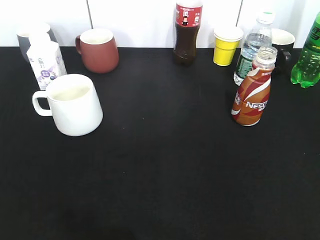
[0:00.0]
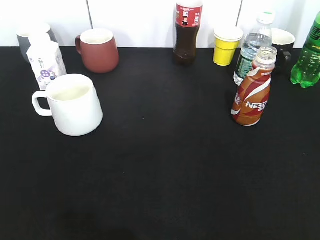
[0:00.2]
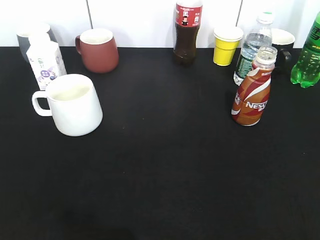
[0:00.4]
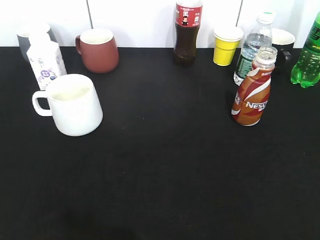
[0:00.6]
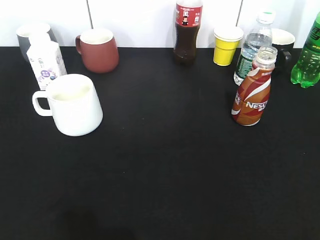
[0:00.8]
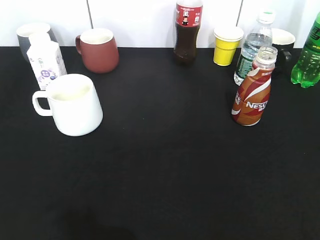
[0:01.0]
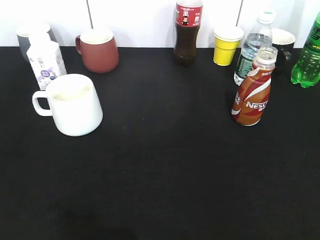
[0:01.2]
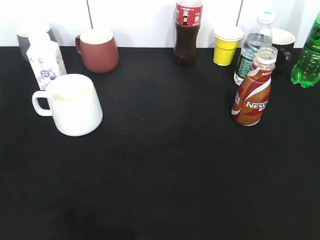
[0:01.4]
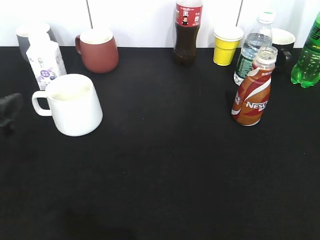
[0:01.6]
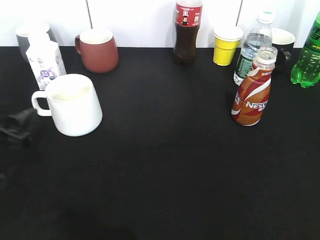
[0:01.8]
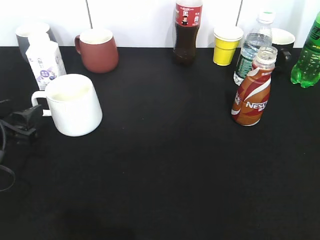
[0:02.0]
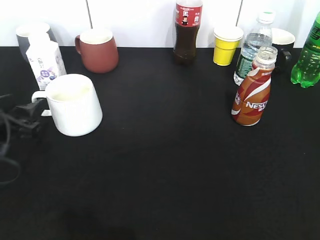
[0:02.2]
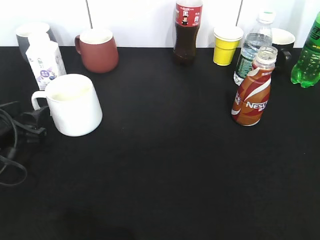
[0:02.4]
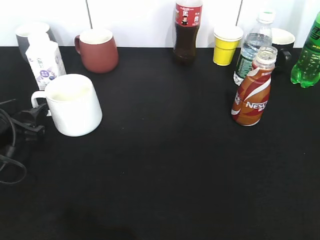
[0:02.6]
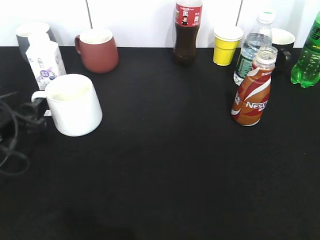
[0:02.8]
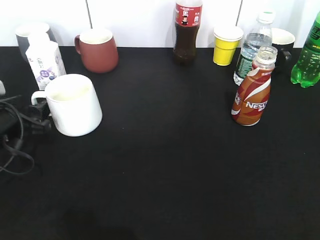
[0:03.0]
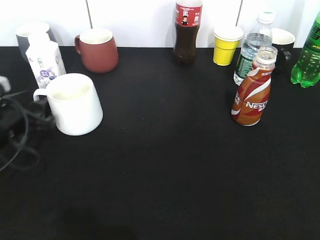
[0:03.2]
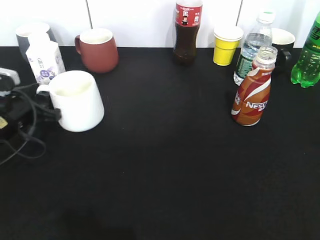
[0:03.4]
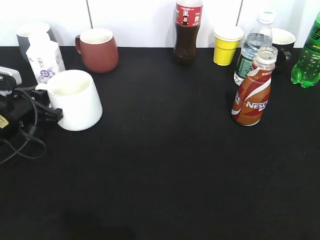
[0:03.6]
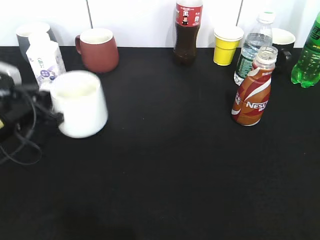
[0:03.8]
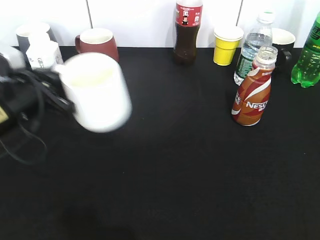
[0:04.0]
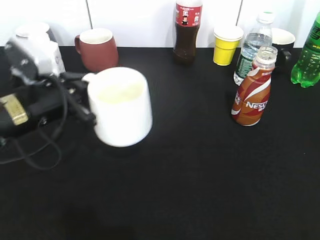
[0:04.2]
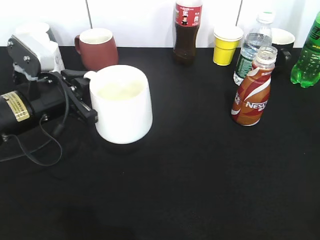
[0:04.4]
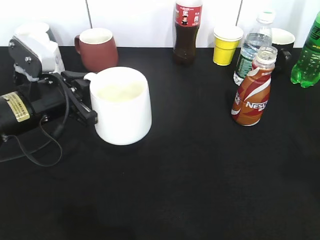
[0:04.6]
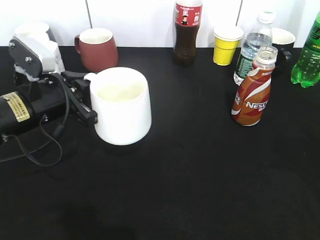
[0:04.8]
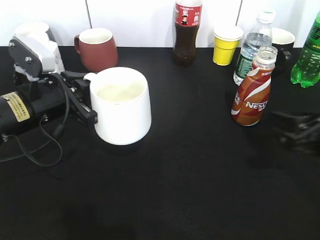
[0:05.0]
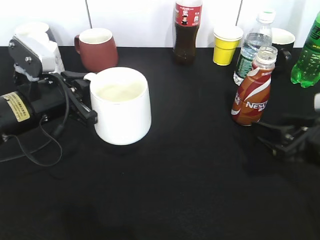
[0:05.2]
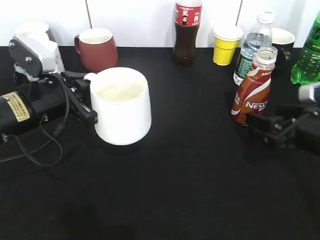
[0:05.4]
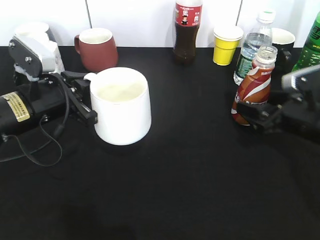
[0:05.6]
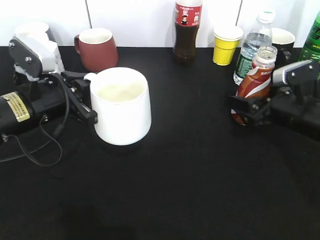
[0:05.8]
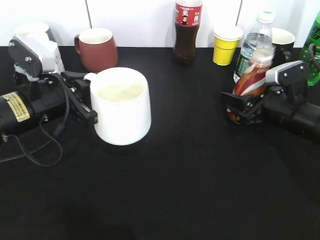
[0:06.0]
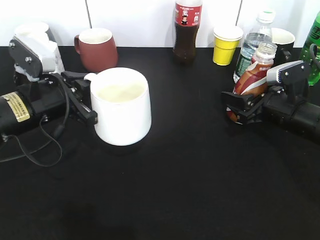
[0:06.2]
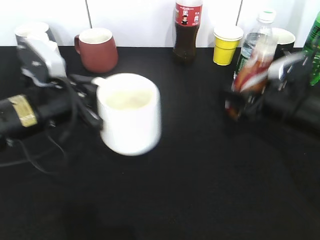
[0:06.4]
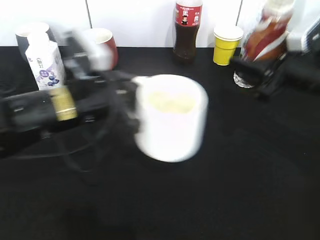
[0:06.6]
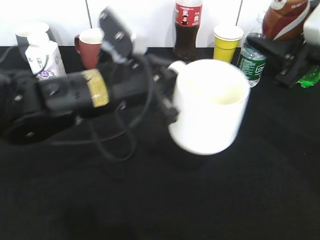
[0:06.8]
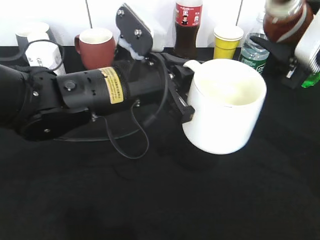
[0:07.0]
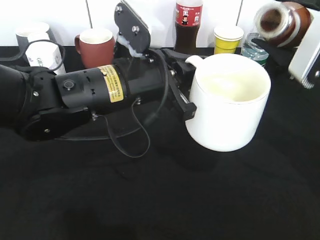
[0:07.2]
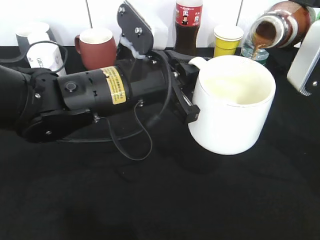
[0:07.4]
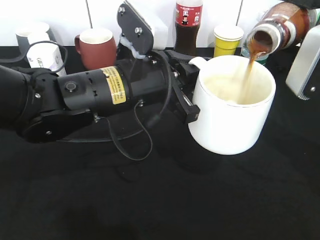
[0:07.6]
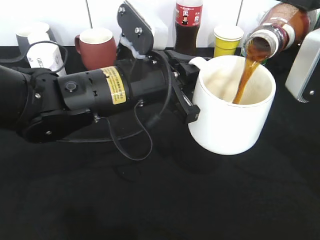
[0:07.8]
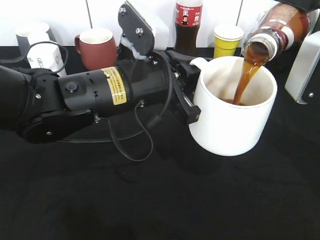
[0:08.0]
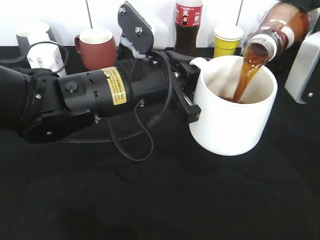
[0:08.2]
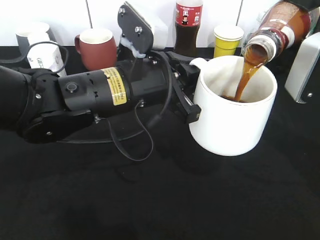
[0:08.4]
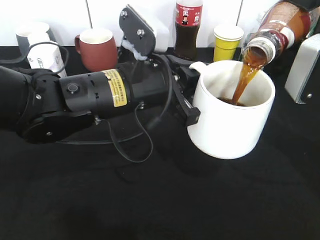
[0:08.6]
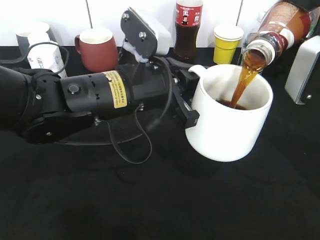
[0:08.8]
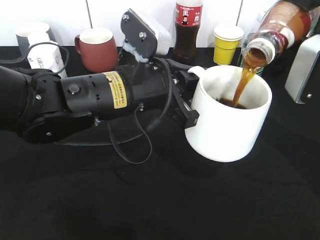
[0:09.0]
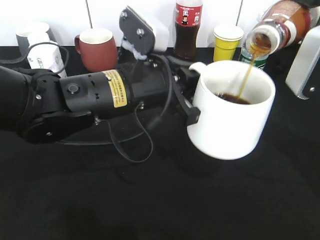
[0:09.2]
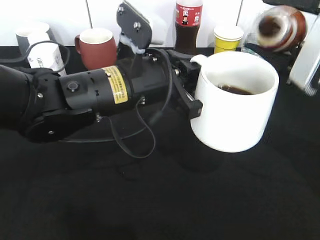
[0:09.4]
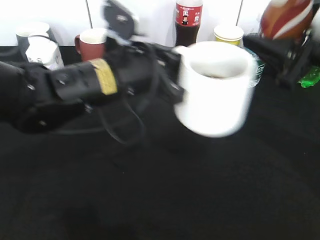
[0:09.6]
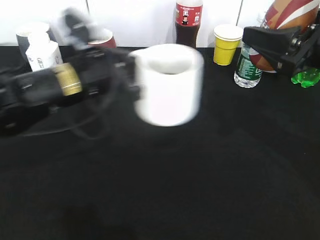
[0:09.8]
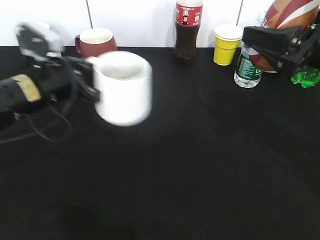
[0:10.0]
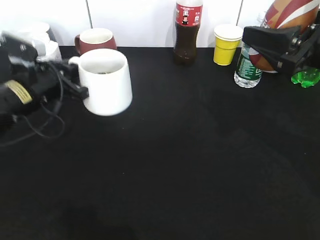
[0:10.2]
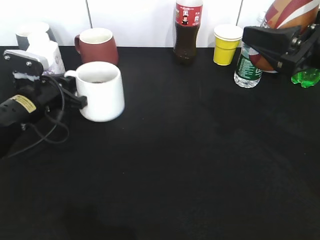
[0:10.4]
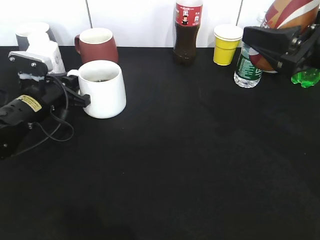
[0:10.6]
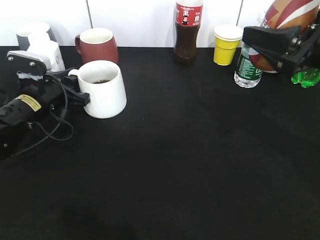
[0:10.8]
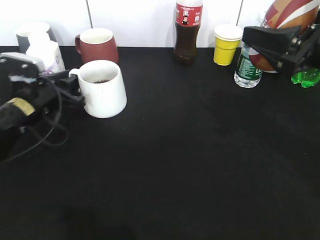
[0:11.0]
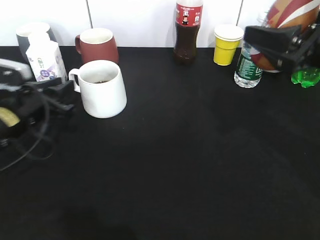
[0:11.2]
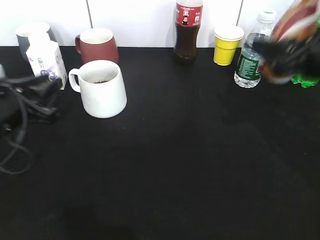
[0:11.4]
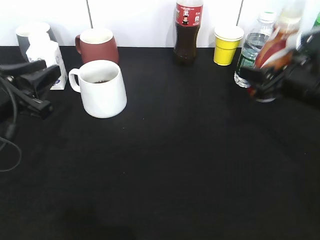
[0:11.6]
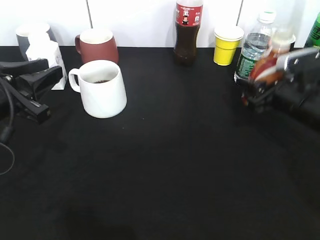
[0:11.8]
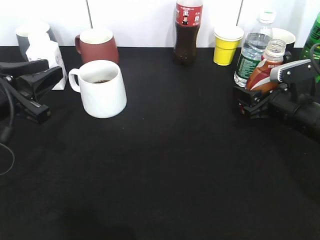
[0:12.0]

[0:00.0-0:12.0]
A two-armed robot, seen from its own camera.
Step, 0:00.6 to 0:03.4: Grasp the white cup with left gripper.
Step, 0:03.6 to 0:04.2: Lift the white cup with left gripper.
Step, 0:04.4 to 0:05.8: Grasp the bottle with coffee with right gripper.
Step, 0:06.0 to 0:09.6: Pour the coffee from bottle to cup with right gripper.
Step, 0:09.8 to 0:11.0: Place the white cup on the table with left gripper.
0:00.0 to 0:01.6: The left gripper moves forward and downward, roughly 25 cm, and opens up.
0:01.6 to 0:03.0: The left gripper moves forward and downward, some 10 cm.
0:03.0 to 0:04.4: The left gripper shifts approximately 10 cm to the right and upward, and closes up.
0:04.4 to 0:06.0: The right gripper is displaced forward and downward by about 35 cm, and opens and closes again.
0:06.0 to 0:07.6: The right gripper is displaced upward by about 15 cm. The left gripper heads to the right, covering some 15 cm.
0:07.6 to 0:09.0: There are only small adjustments of the grippers.
0:09.0 to 0:10.4: The left gripper heads to the left, downward and forward, covering about 20 cm.
0:10.4 to 0:12.0: The left gripper is displaced backward and upward by approximately 15 cm, and opens. The right gripper shifts about 15 cm downward and forward.

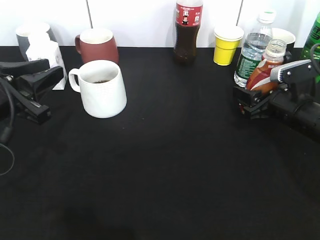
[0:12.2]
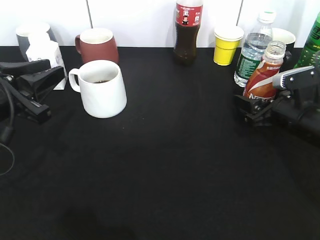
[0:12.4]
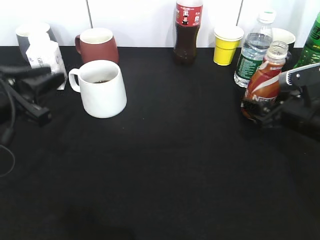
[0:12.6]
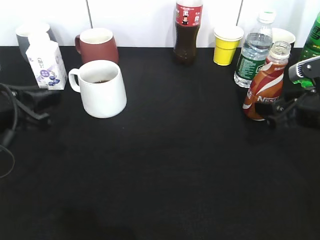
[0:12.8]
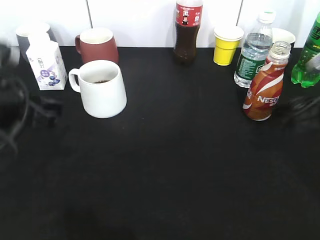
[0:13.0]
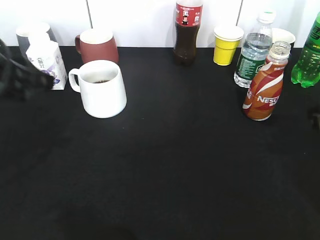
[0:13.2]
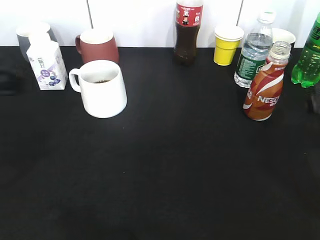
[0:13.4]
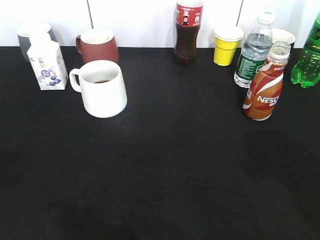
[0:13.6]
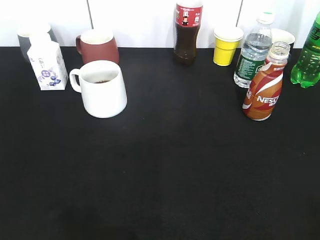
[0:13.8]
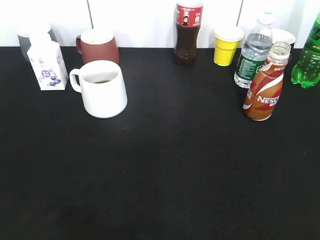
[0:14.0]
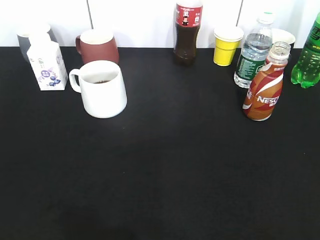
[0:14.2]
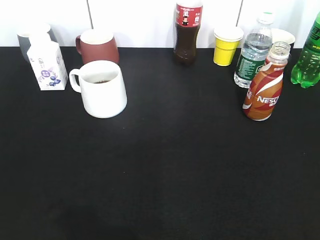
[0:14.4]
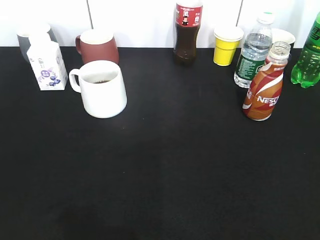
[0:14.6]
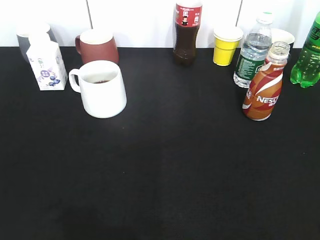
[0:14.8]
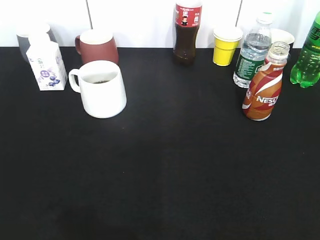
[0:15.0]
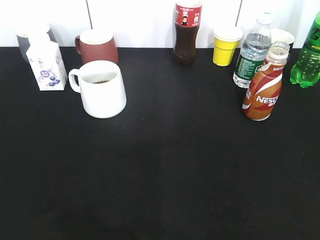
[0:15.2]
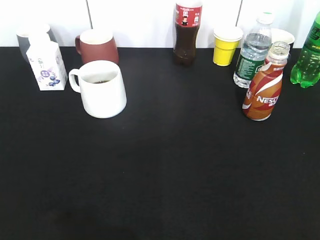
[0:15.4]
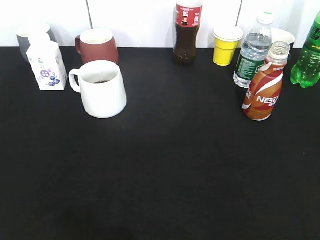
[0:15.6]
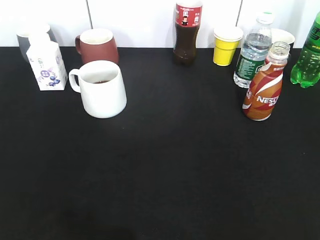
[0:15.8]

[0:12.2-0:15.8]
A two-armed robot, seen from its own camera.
0:12.2 to 0:14.0: The right gripper moves backward and upward, approximately 35 cm, while the left gripper heads backward and upward, covering approximately 25 cm.

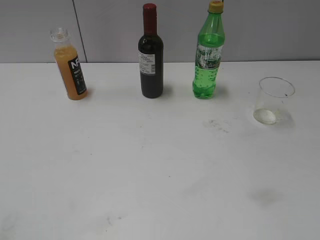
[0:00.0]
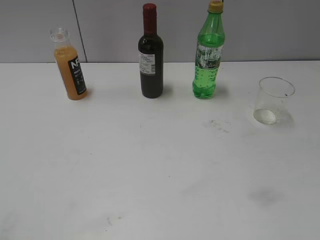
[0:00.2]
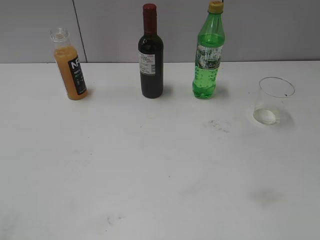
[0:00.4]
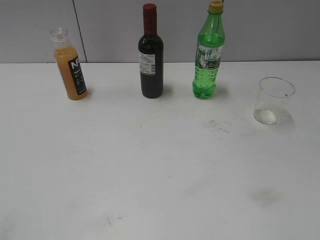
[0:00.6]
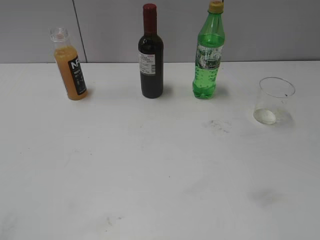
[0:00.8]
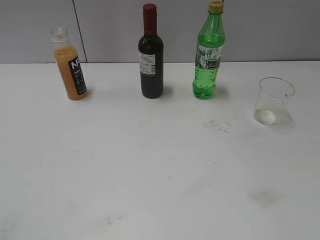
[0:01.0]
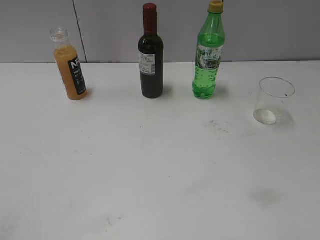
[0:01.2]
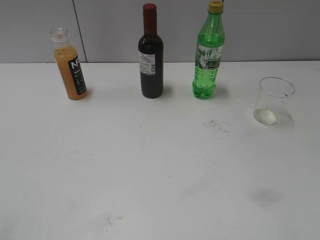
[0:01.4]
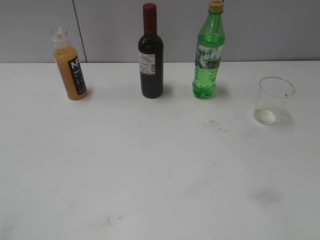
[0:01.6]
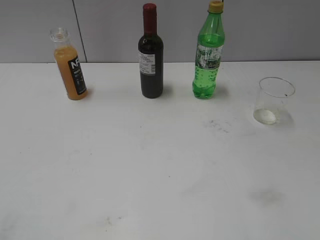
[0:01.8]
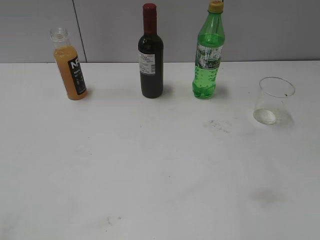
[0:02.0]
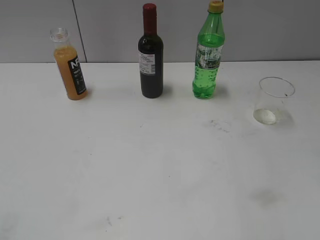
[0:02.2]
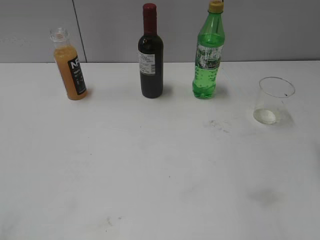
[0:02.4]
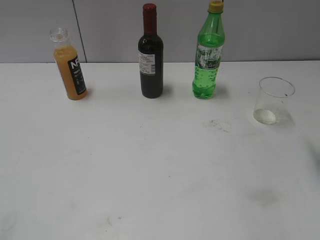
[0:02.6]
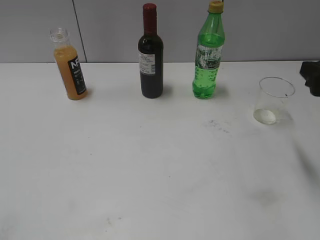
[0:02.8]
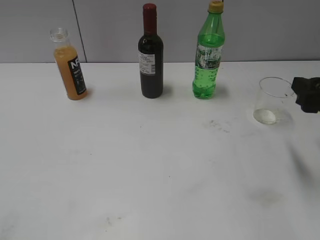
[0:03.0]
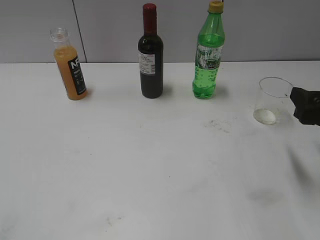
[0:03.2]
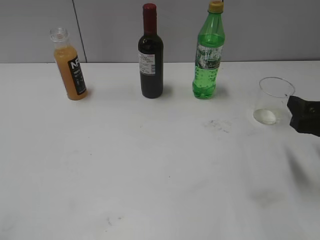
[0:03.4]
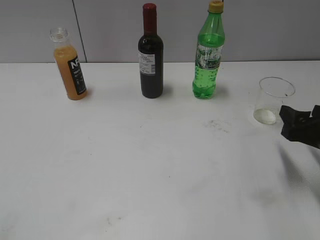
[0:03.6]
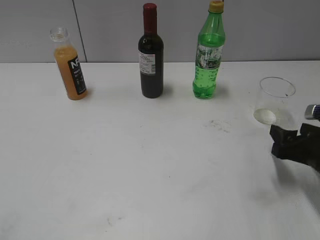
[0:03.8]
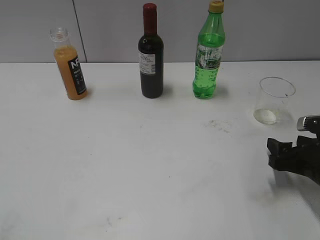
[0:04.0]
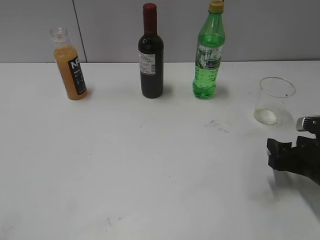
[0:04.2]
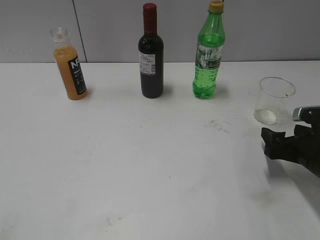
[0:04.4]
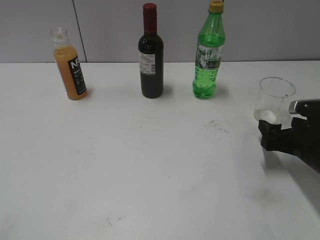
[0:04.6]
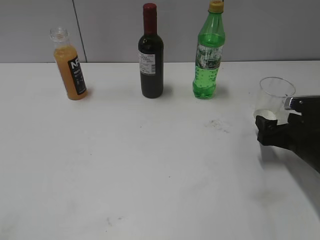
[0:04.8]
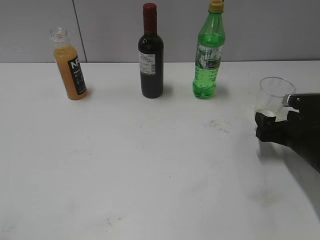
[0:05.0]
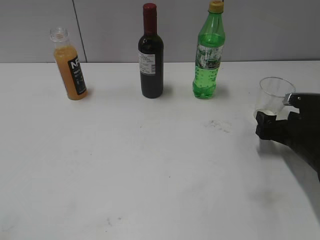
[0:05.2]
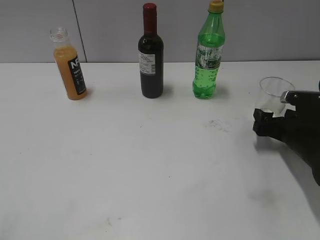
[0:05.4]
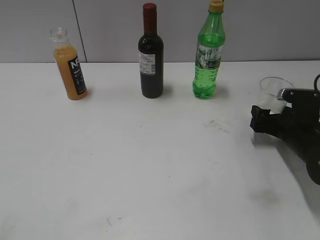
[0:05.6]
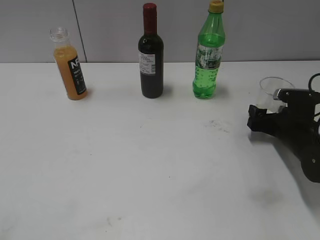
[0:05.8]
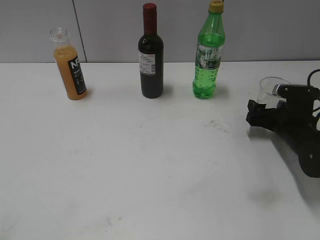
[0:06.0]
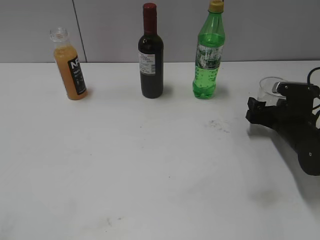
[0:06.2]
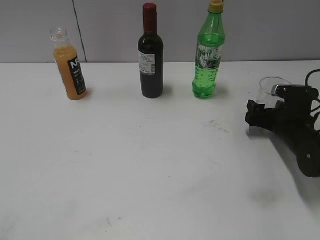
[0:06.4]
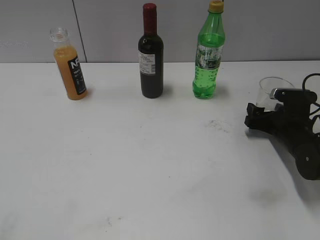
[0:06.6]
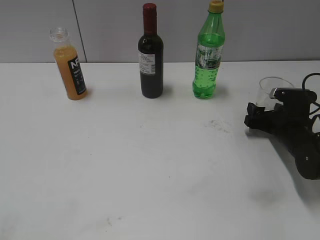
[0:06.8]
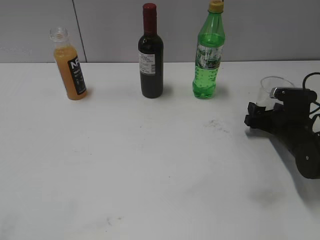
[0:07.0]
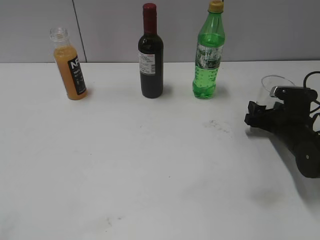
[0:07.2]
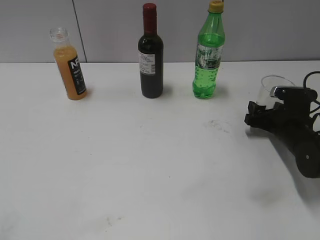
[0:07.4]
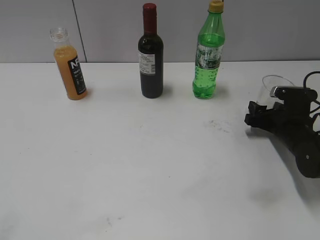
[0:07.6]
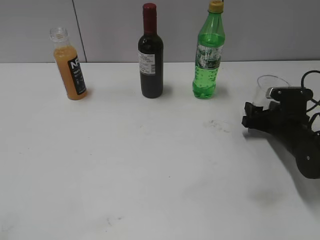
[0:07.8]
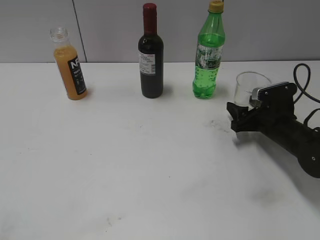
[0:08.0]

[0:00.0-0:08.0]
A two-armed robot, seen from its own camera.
Step, 0:02.8 to 0:07.6: Grasp the transparent cup with right gripper.
0:01.6 to 0:03.2: The right gripper goes some 20 cm forward and downward.
0:03.2 to 0:04.8: The right gripper moves downward, approximately 10 cm, and opens up.
0:04.8 to 0:06.4: The right gripper heads forward, covering roughly 5 cm.
0:06.4 to 0:08.0: The right gripper closes its fingers.
